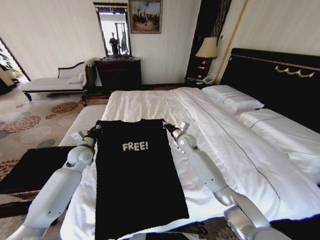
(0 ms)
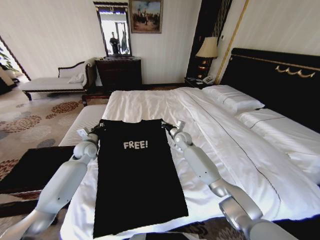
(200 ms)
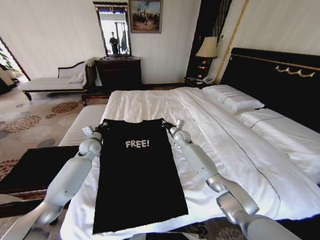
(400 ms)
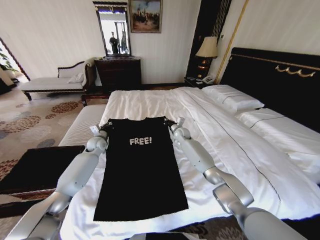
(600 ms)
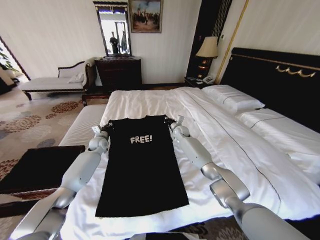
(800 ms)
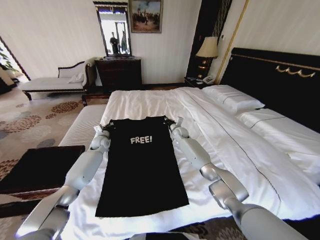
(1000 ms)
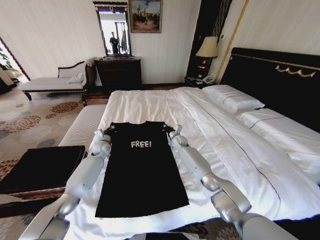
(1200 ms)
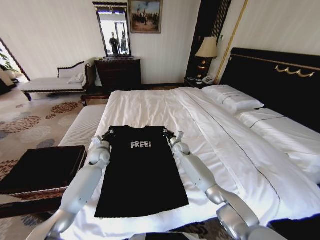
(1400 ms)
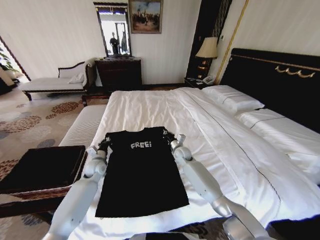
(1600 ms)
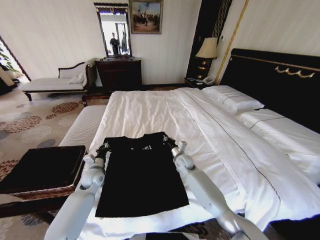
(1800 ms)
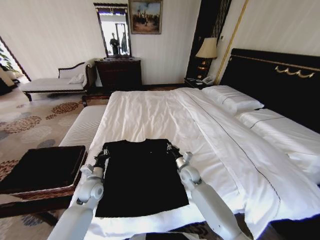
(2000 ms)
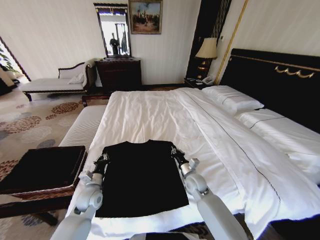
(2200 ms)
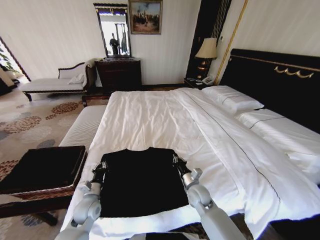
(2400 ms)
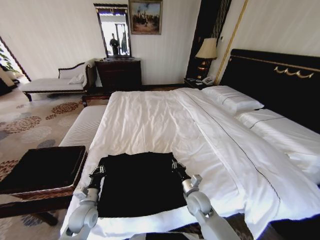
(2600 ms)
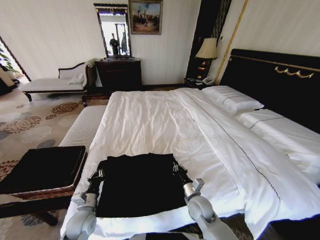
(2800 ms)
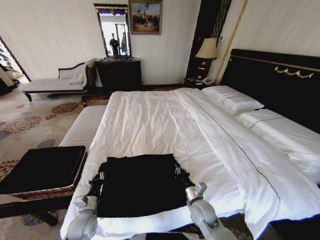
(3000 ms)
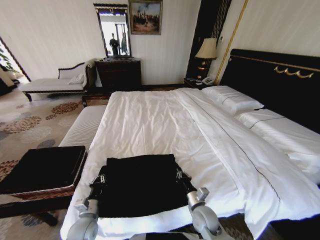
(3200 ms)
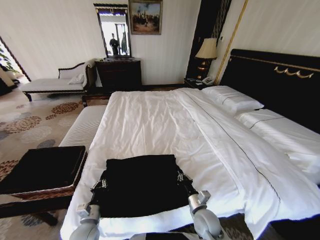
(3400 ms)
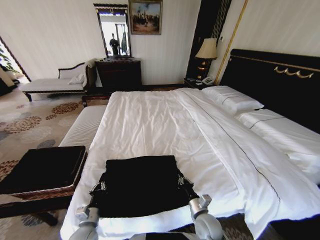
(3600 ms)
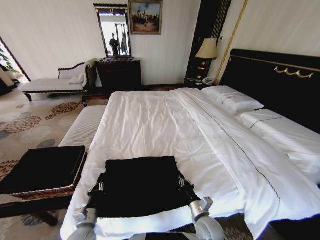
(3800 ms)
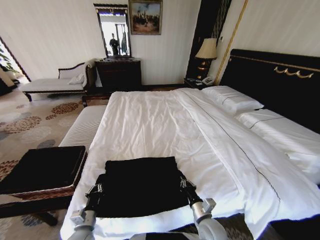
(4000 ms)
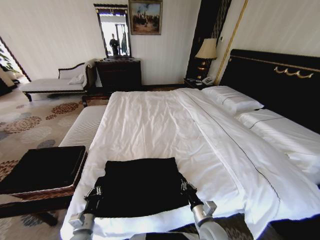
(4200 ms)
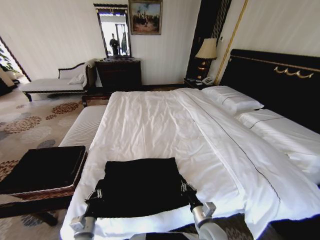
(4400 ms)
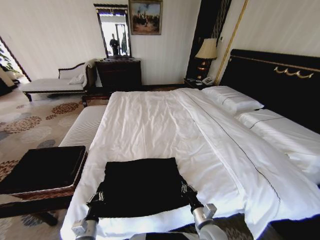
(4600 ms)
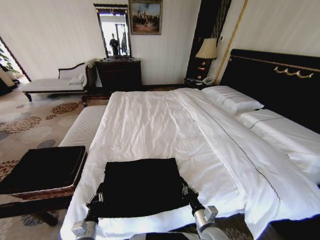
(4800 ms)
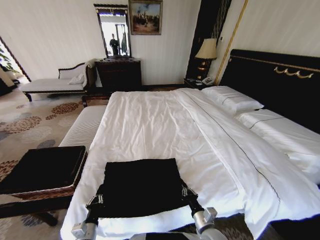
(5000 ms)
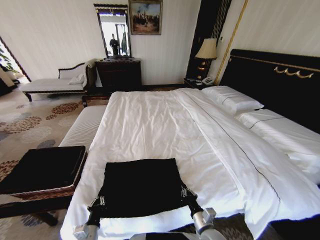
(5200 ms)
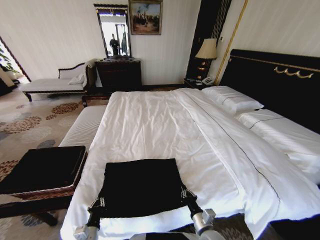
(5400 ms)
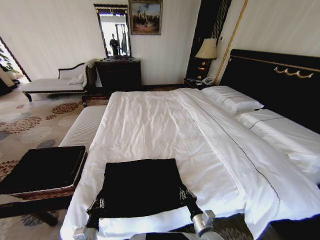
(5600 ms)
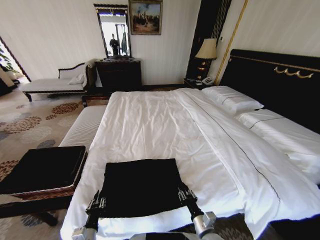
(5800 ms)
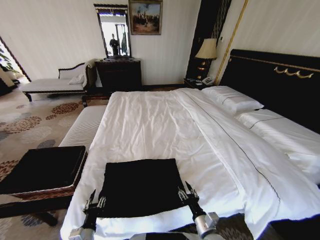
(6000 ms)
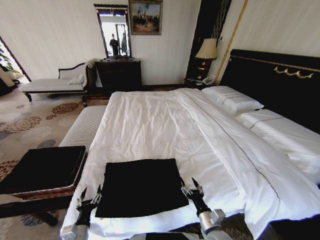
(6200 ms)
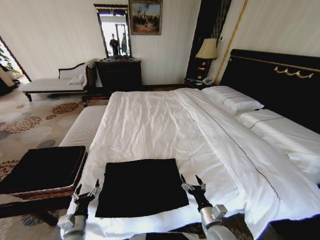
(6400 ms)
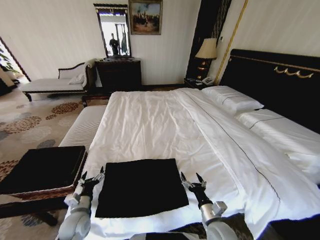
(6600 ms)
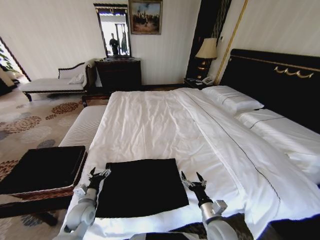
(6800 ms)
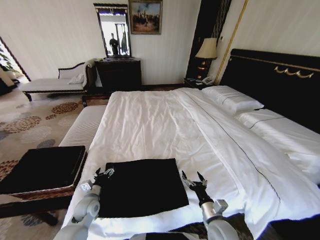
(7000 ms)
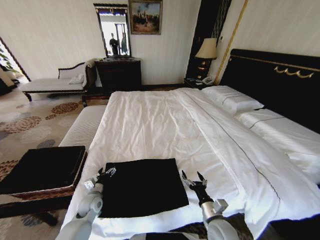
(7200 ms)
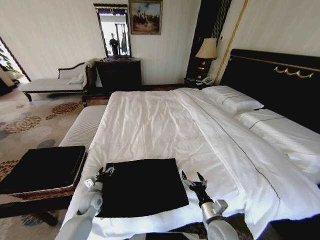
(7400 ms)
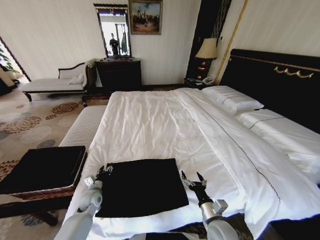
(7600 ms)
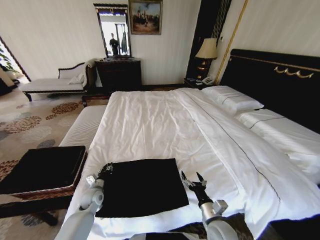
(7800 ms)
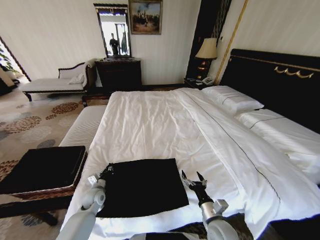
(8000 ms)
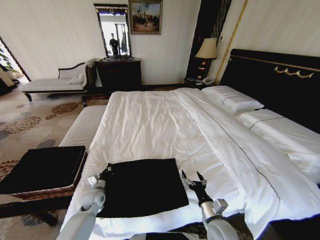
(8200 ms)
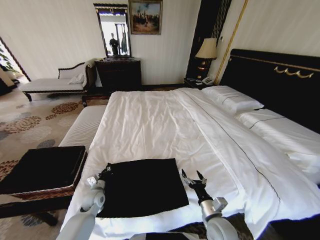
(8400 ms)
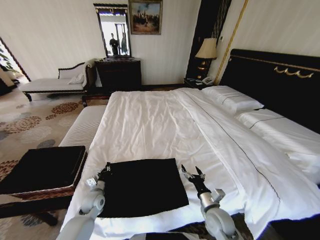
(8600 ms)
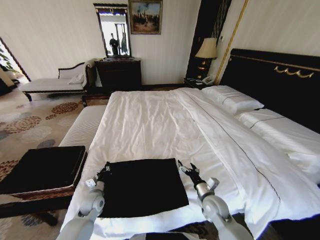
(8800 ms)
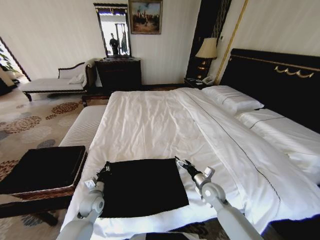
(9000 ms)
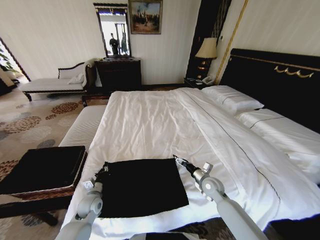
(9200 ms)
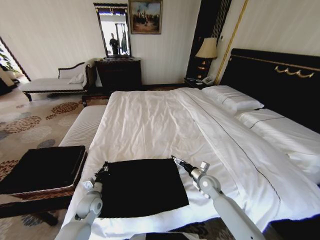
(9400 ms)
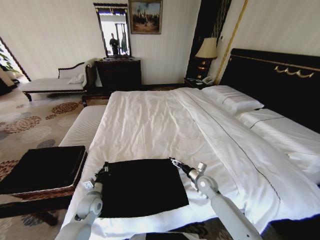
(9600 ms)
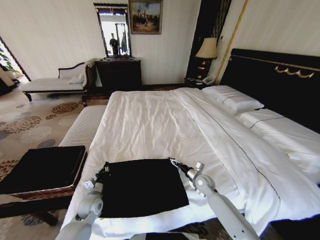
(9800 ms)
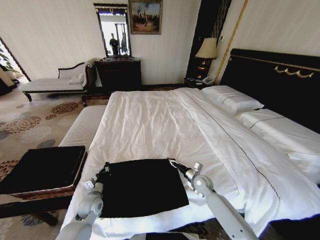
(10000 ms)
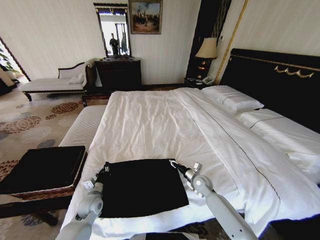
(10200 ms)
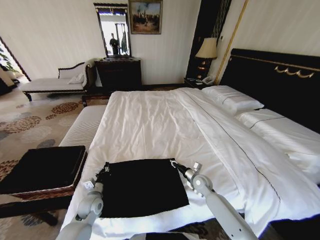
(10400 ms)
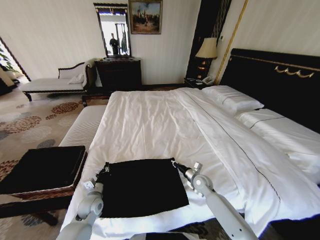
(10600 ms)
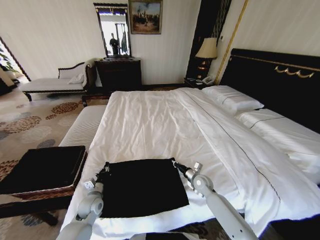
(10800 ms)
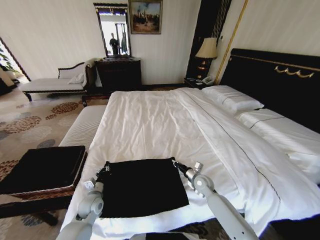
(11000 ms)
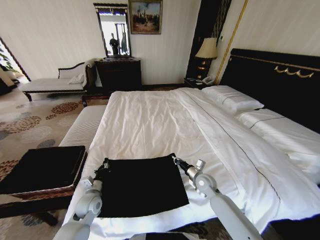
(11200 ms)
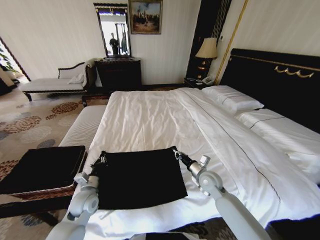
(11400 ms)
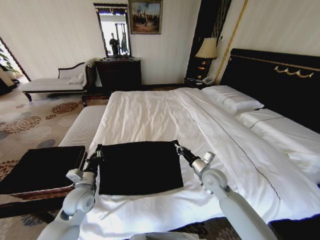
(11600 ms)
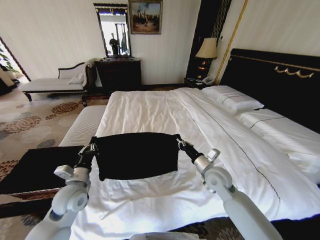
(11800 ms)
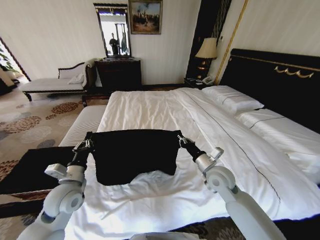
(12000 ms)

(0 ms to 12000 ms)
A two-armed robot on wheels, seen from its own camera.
Task of the whole recording: Fold the clothes on the bed and place them into the basket.
0 ms - 1600 ms: Both grippers travel together downward, approximately 10 cm. The left gripper travels forward and back again, about 10 cm each way. The right gripper travels forward and back again, some 10 cm each way.
1600 ms - 3000 ms: The two grippers go some 25 cm backward.
3000 ms - 4400 ms: The grippers both shift backward by about 5 cm.
4400 ms - 6000 ms: The left gripper opens up. The right gripper opens its fingers.
6000 ms - 7600 ms: The right gripper shifts by roughly 5 cm, and opens up. Meanwhile the left gripper is displaced forward by roughly 20 cm.
7600 ms - 9000 ms: The right gripper is displaced forward by some 15 cm. The left gripper closes.
9000 ms - 10400 ms: The right gripper travels forward by approximately 5 cm, and closes its fingers.
10400 ms - 12000 ms: The grippers both shift upward by some 20 cm.

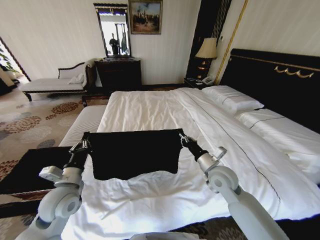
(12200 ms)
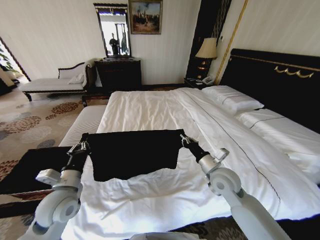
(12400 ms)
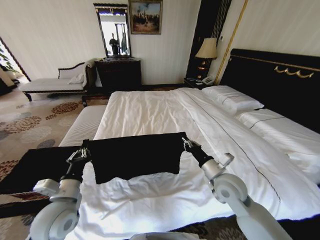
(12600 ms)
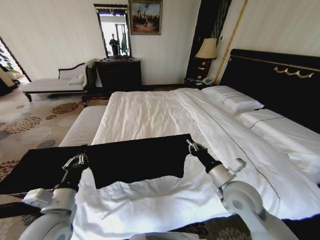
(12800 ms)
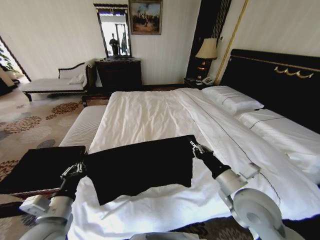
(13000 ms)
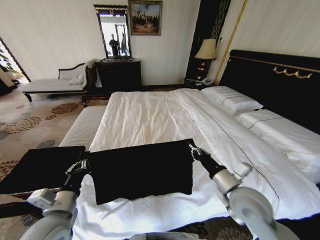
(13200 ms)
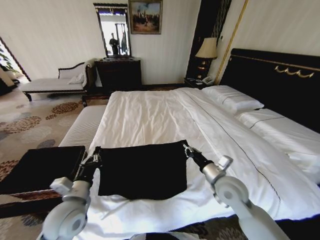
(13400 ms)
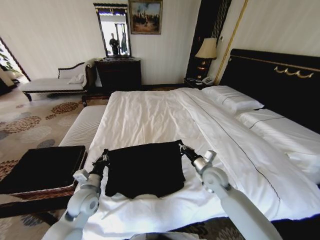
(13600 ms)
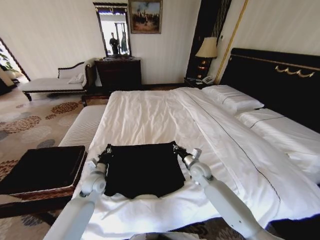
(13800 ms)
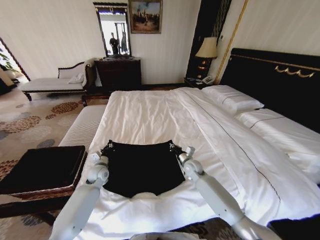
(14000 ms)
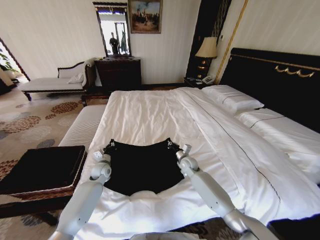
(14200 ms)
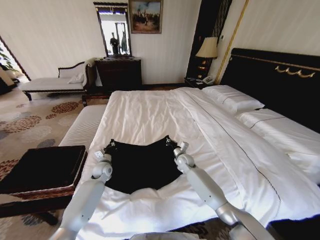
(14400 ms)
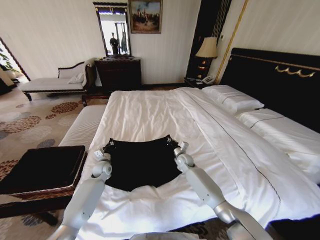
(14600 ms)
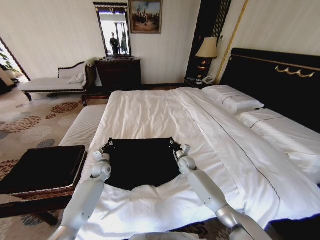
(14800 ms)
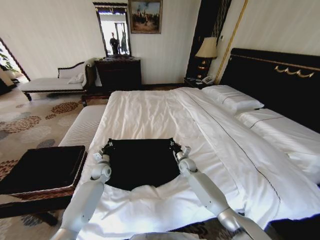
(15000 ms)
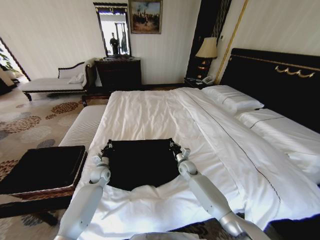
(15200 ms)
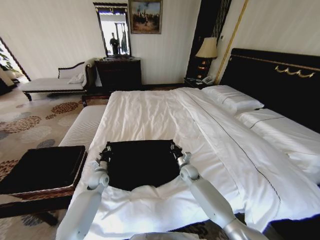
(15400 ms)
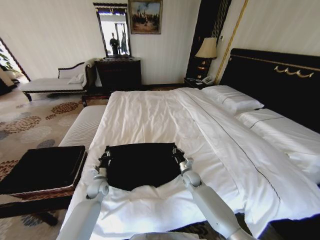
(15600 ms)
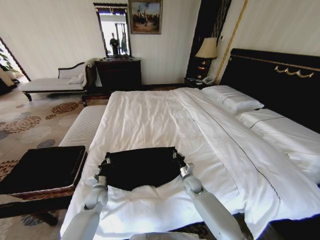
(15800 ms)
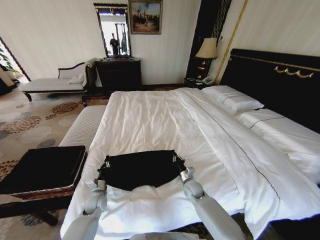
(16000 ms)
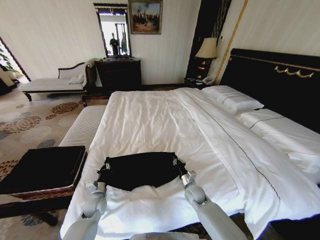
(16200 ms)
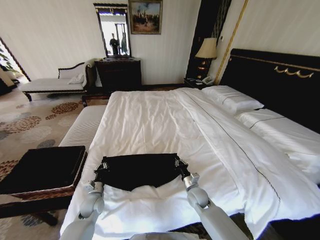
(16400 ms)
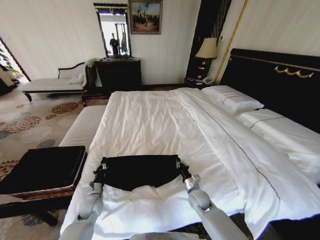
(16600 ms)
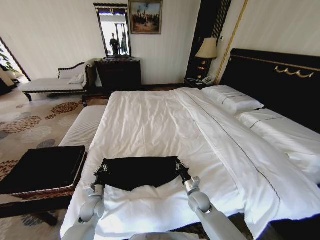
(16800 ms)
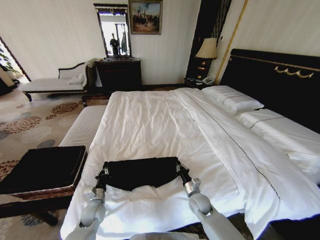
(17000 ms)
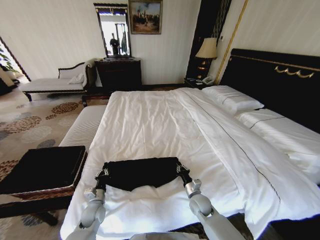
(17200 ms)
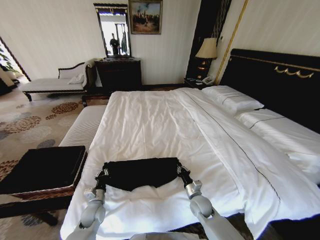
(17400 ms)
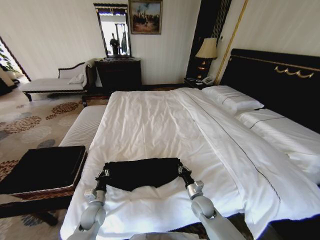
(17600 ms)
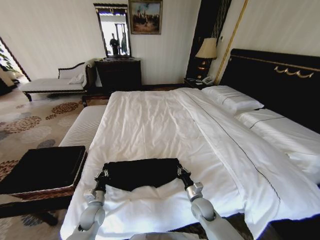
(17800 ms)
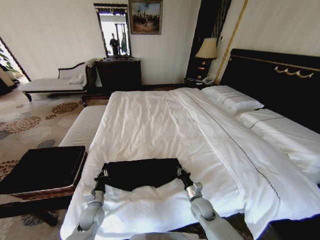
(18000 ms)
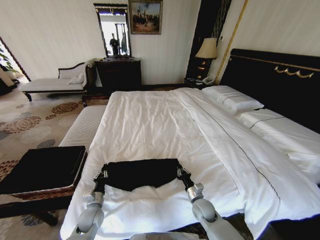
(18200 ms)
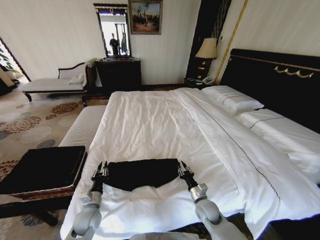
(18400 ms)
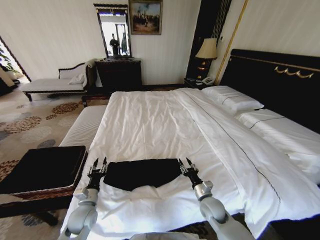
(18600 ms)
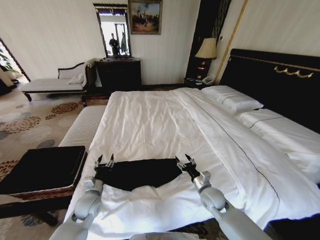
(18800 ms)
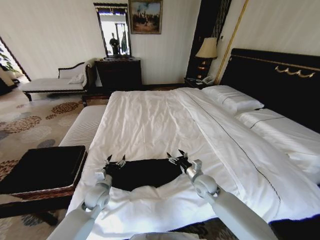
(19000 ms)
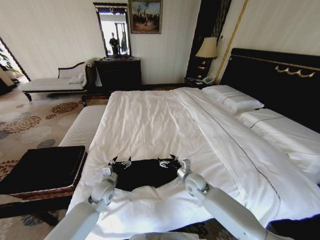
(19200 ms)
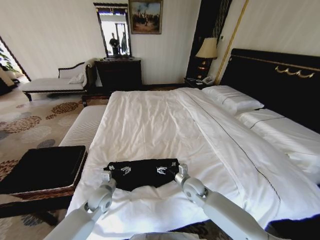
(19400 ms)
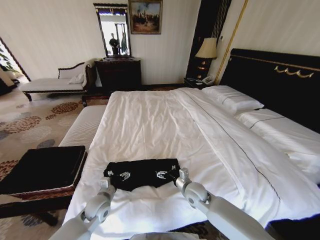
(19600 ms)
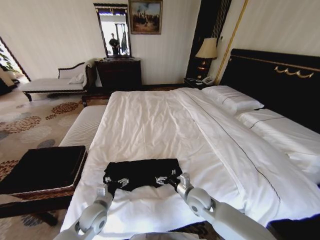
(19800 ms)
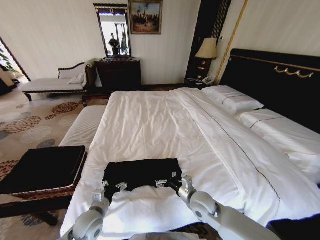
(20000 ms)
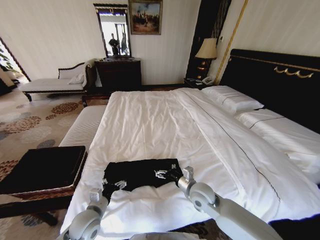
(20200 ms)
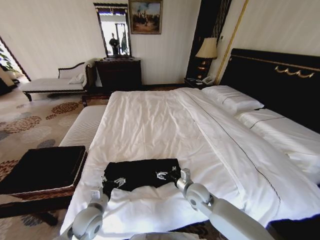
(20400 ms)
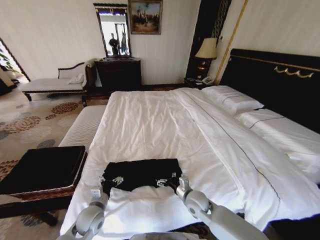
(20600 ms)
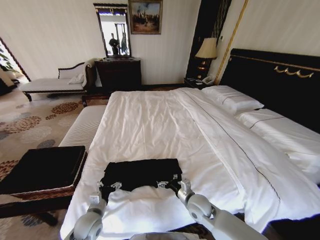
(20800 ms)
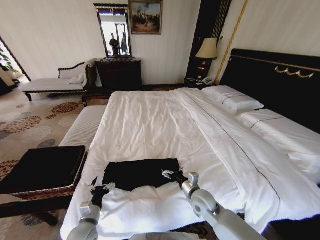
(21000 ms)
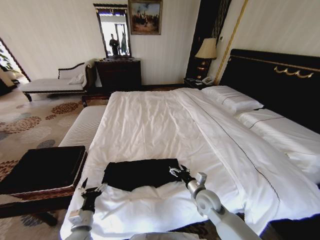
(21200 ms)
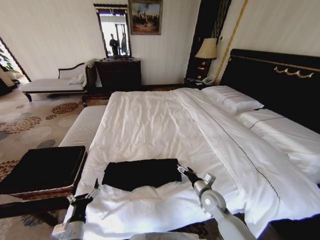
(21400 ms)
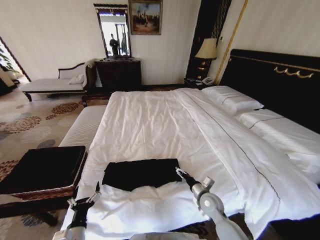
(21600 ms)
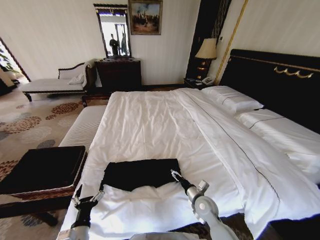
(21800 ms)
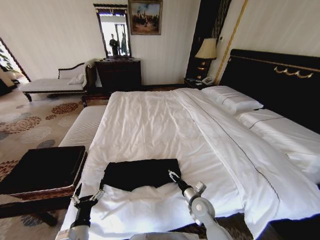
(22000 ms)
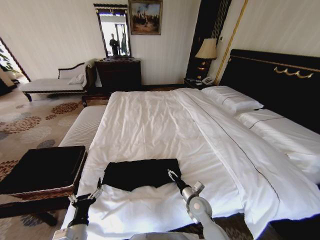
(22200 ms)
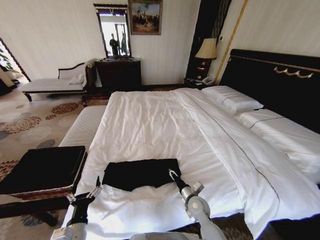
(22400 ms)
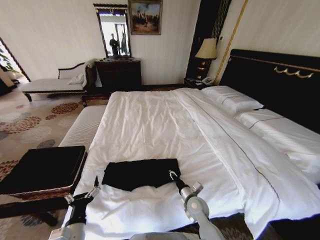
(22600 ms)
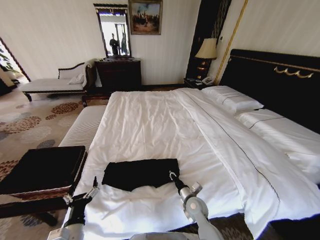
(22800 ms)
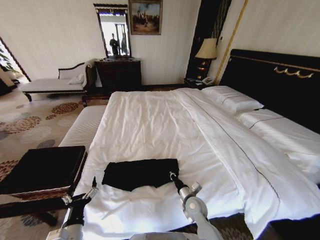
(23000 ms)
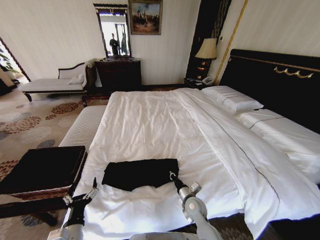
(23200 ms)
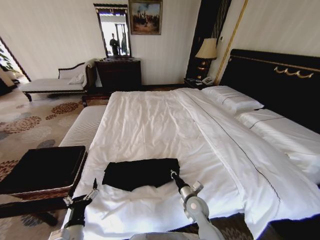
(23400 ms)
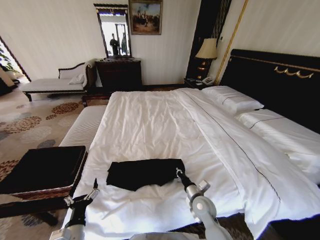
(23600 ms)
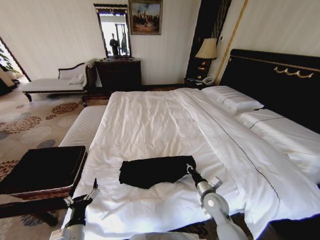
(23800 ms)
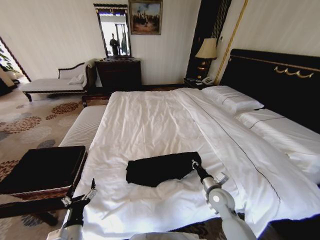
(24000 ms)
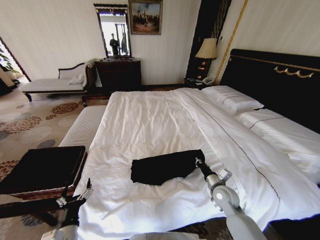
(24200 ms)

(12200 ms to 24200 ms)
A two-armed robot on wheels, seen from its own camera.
Task of the whole recording: Fold the clothes on the bed and place them into the basket.
12200 ms - 13800 ms: The grippers both shift downward and forward by roughly 15 cm.
13800 ms - 15200 ms: The left gripper travels forward and downward by some 10 cm; the right gripper moves downward and forward, about 10 cm.
15200 ms - 16600 ms: The two grippers go roughly 15 cm backward.
16600 ms - 18200 ms: The grippers move only a little.
18200 ms - 19800 ms: Both grippers travel together upward, roughly 10 cm. The left gripper goes forward and returns, approximately 10 cm each way, and opens; the right gripper opens.
19800 ms - 21200 ms: The left gripper heads backward, covering approximately 10 cm.
21200 ms - 22600 ms: The right gripper is displaced downward by about 5 cm, and closes its fingers. Meanwhile the left gripper ends up roughly 5 cm from where it was.
22600 ms - 24200 ms: The right gripper shifts about 15 cm to the right and upward, and closes up.
